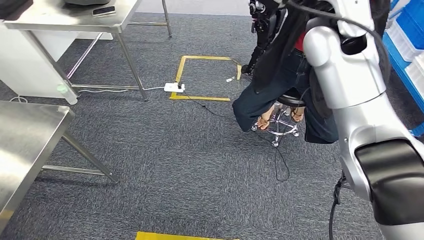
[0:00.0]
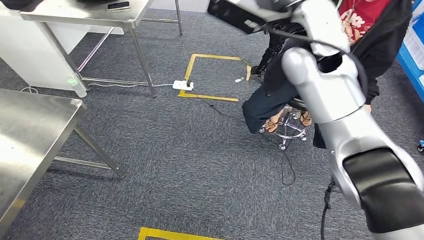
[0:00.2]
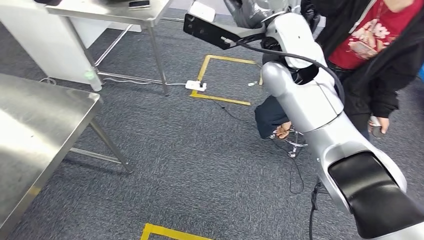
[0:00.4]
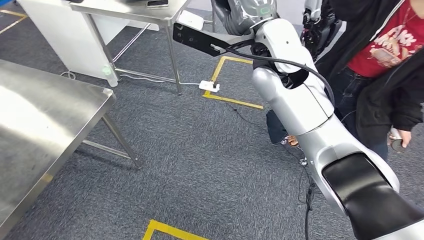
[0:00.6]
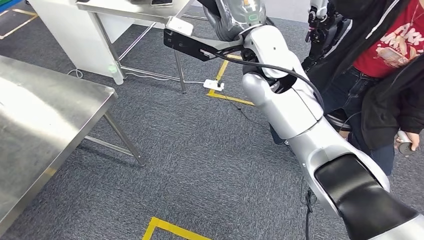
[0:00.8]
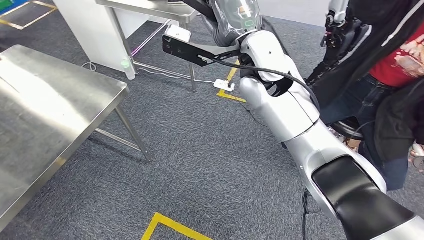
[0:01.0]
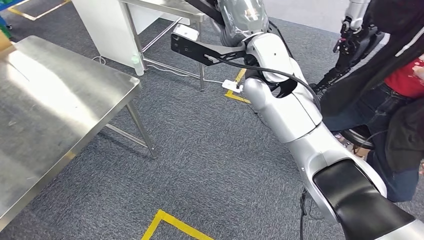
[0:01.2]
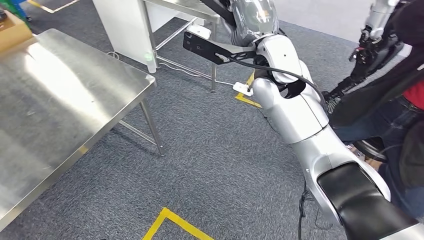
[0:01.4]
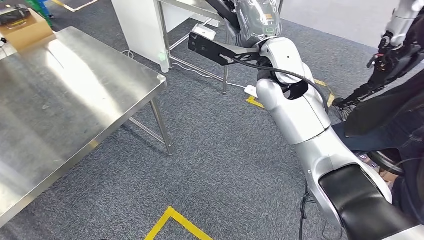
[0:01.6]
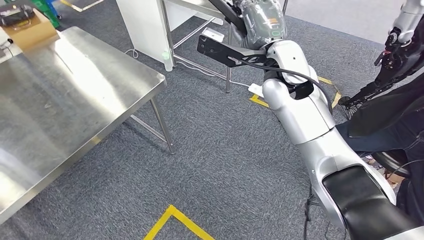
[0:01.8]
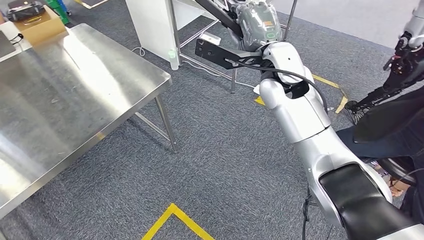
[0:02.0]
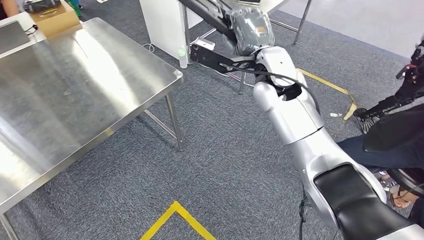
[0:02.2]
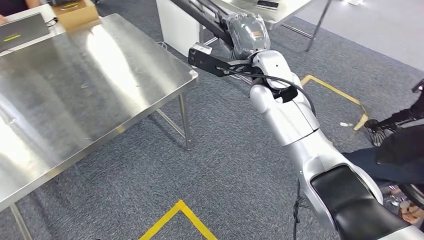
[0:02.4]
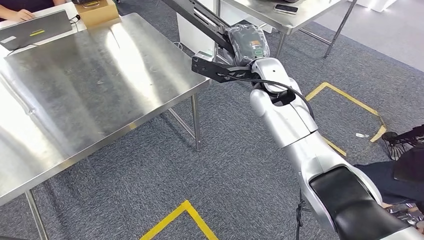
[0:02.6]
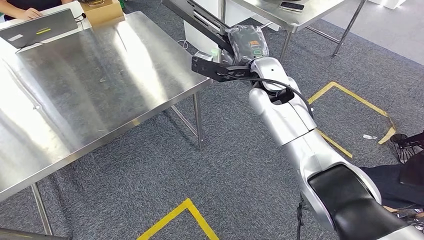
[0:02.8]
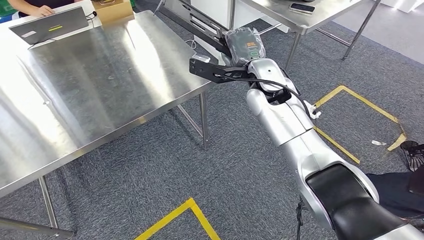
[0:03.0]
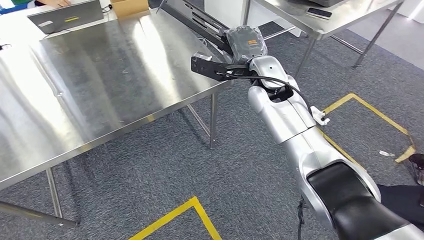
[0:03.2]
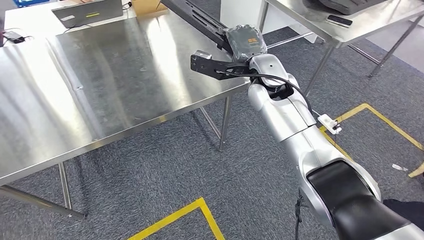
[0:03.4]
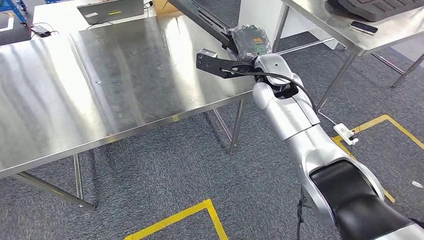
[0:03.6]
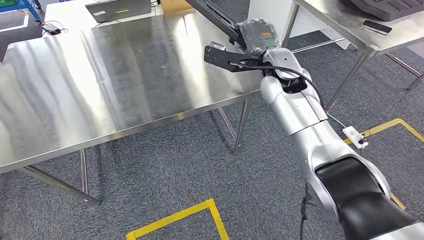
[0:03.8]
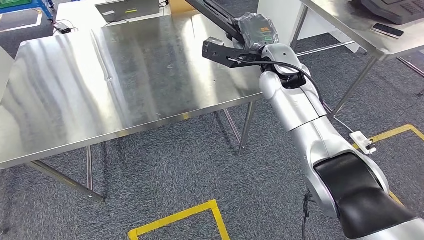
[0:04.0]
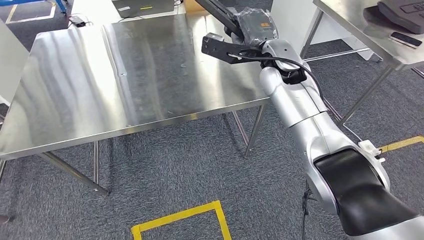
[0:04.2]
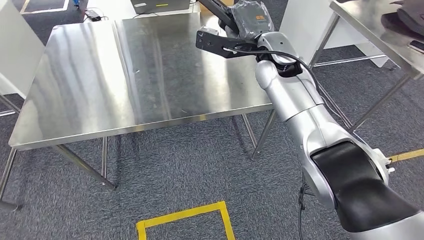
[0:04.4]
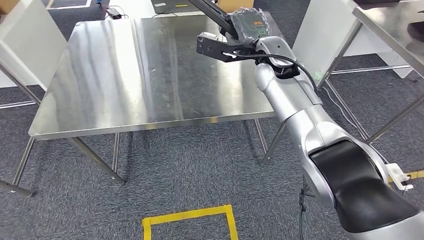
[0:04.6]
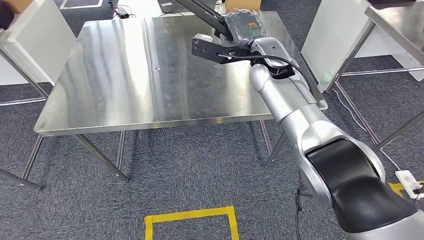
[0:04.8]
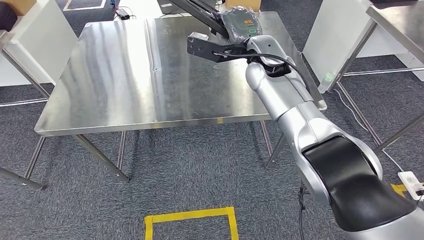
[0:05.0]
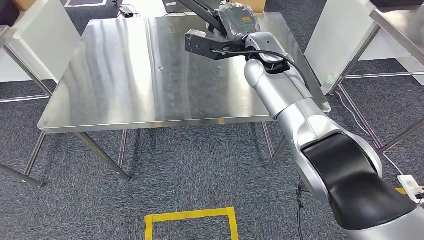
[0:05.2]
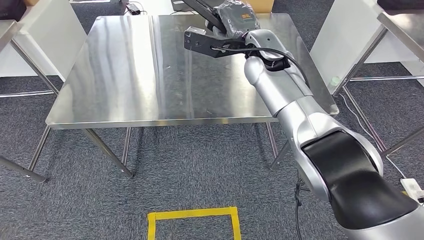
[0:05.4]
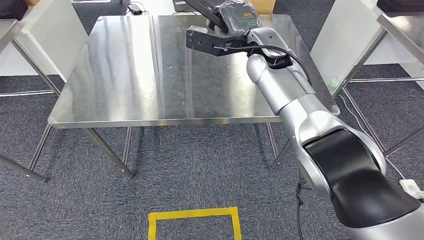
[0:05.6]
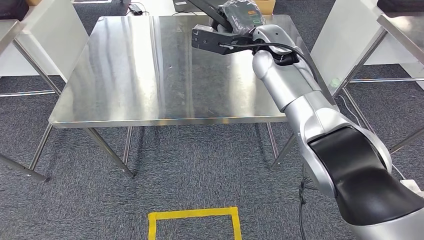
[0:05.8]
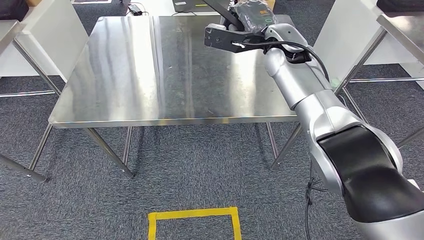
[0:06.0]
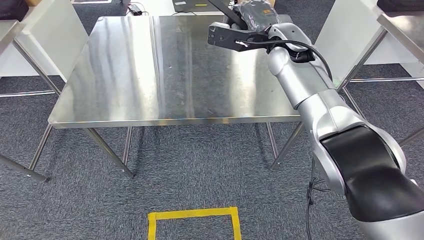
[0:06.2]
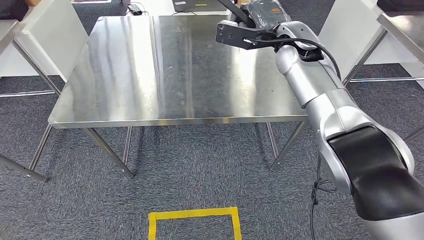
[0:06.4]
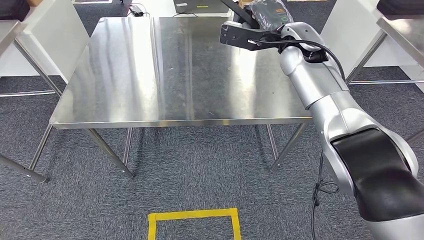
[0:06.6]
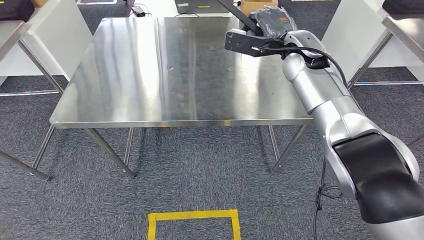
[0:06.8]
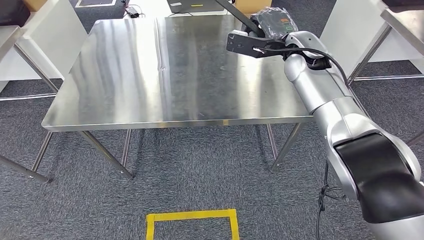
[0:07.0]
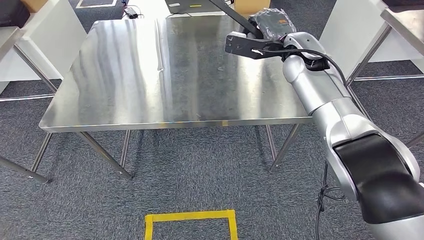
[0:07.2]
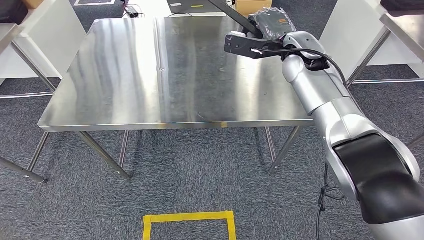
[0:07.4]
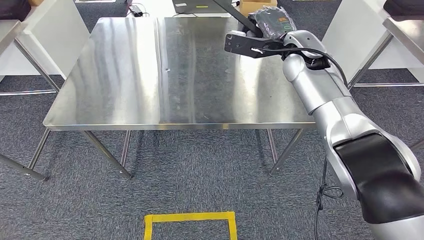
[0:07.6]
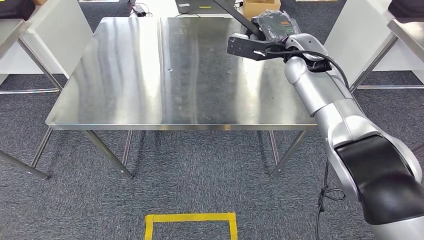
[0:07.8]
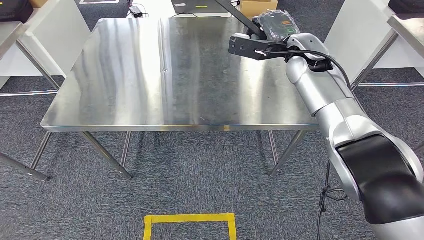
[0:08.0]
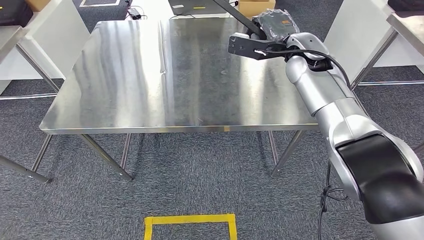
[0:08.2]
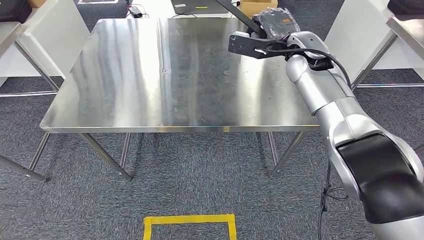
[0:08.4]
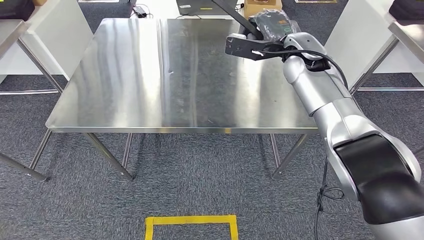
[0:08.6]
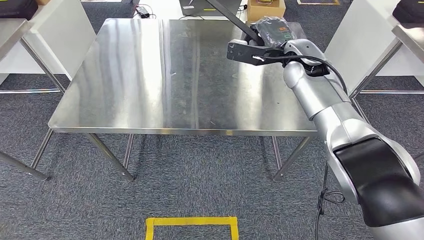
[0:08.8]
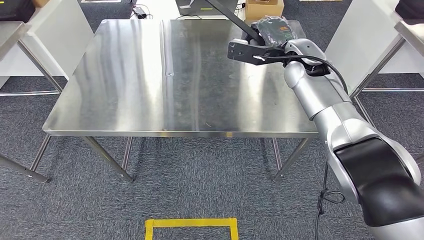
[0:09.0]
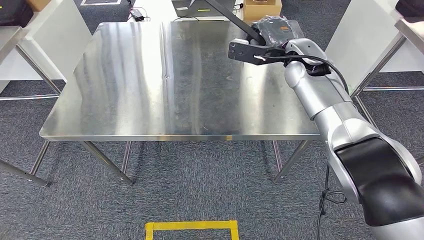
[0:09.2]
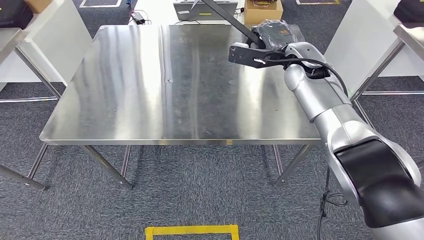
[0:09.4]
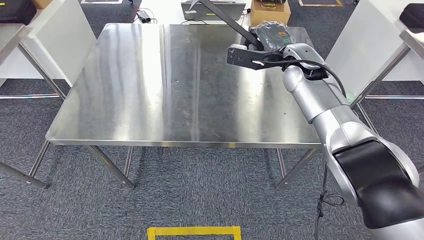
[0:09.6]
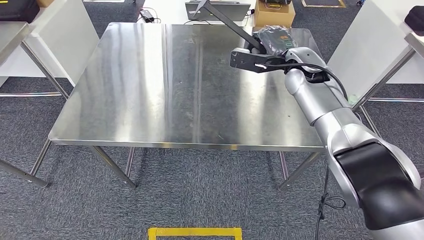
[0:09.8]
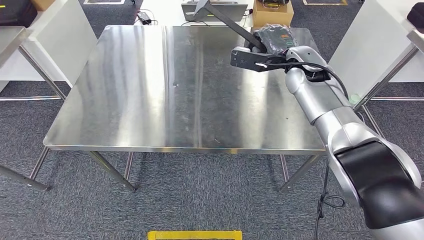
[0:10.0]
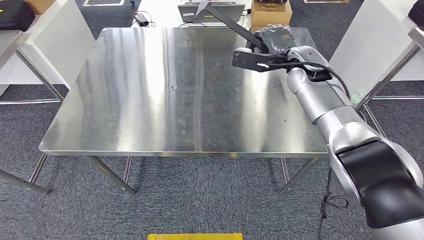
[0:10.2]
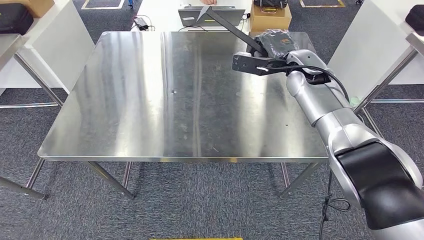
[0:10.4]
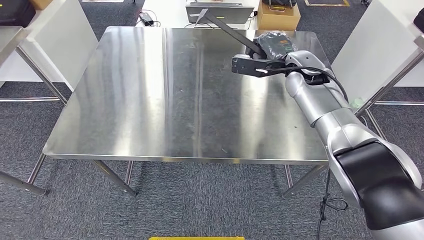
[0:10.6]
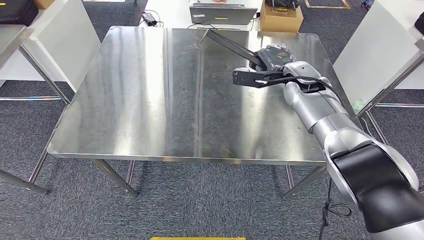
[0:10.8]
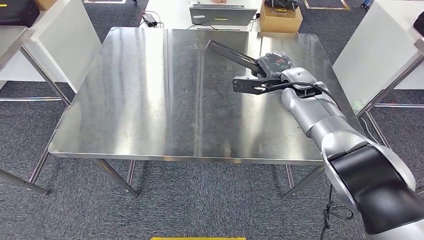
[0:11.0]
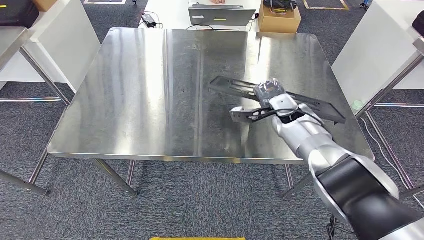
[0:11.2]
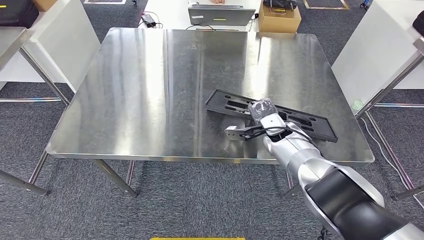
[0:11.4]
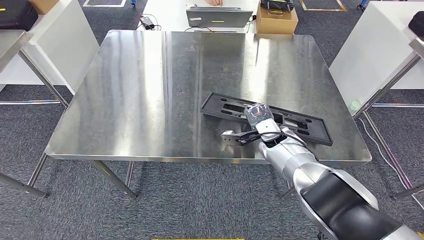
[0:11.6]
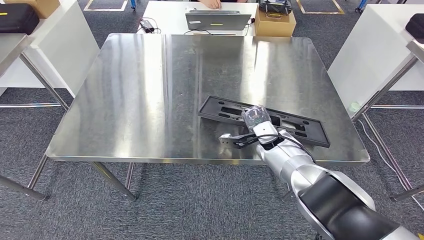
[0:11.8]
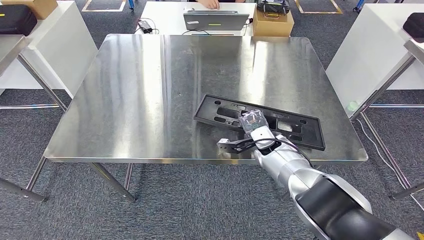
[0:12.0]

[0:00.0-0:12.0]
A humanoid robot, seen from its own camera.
Step, 0:00.0 to 0:02.6: Move the large material to the workbench.

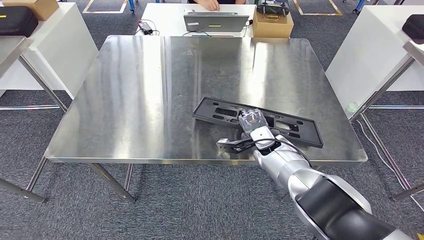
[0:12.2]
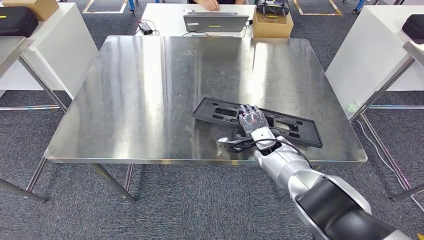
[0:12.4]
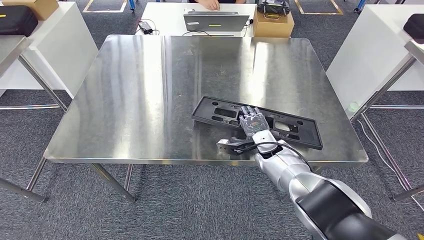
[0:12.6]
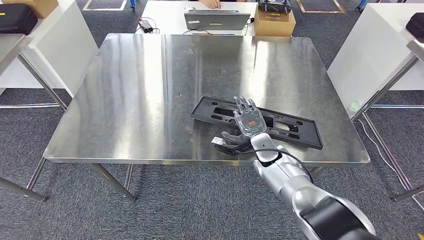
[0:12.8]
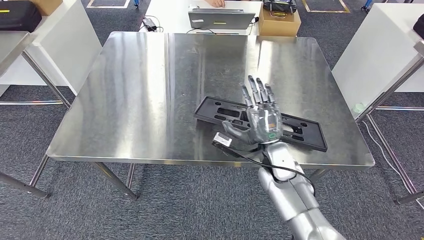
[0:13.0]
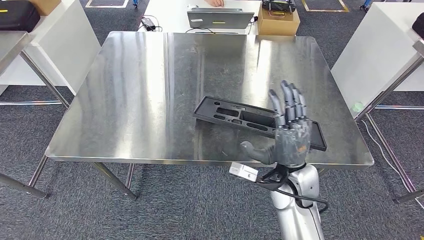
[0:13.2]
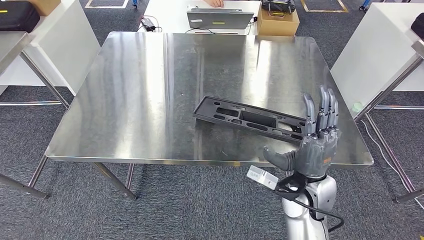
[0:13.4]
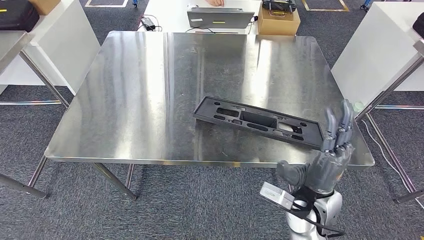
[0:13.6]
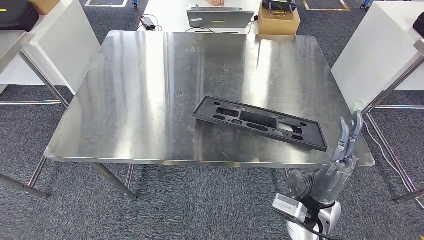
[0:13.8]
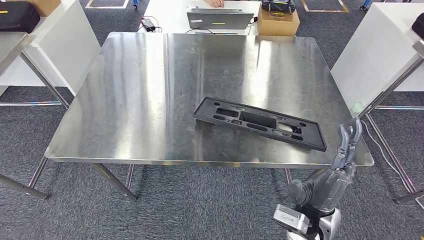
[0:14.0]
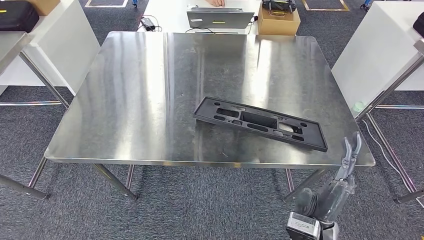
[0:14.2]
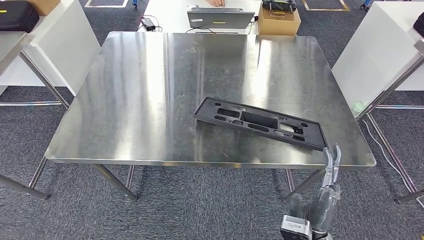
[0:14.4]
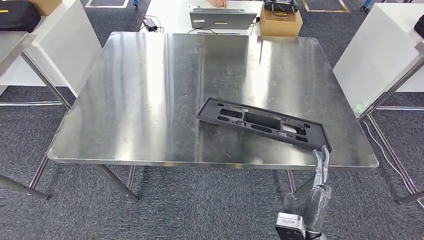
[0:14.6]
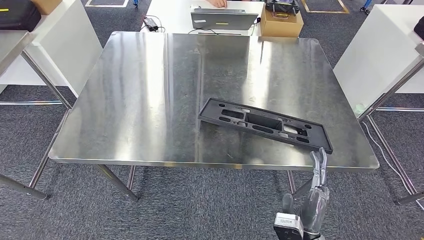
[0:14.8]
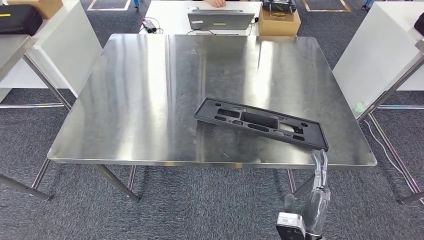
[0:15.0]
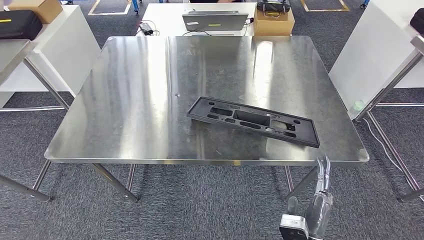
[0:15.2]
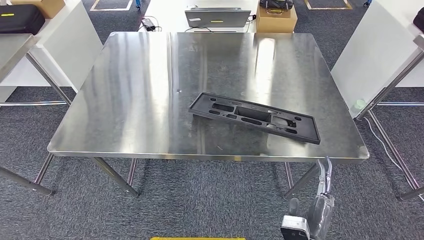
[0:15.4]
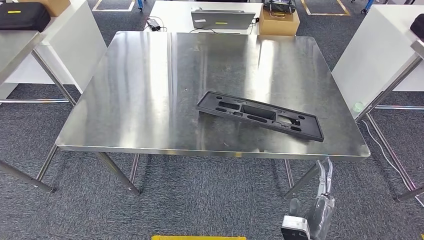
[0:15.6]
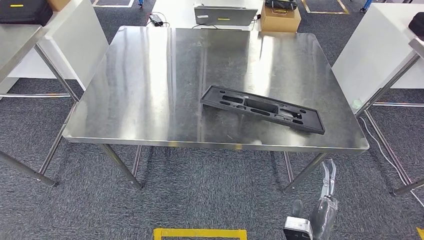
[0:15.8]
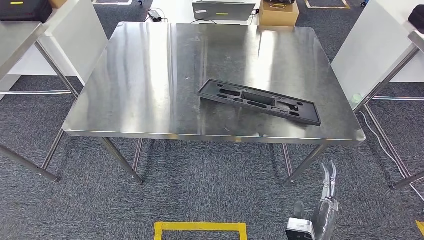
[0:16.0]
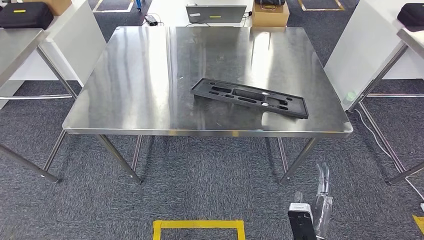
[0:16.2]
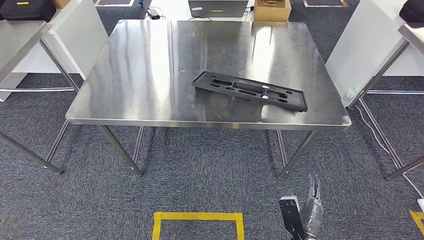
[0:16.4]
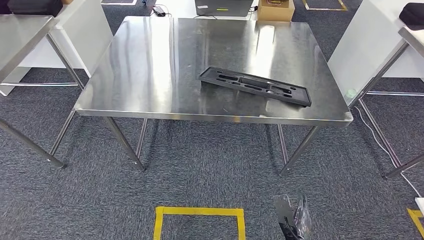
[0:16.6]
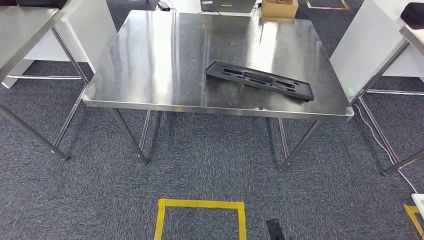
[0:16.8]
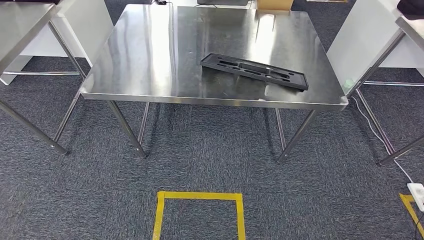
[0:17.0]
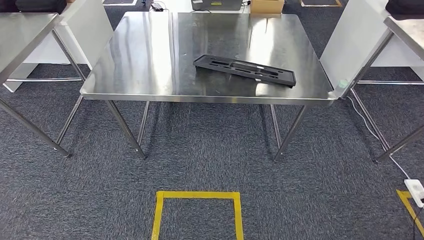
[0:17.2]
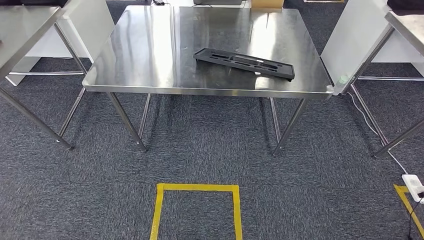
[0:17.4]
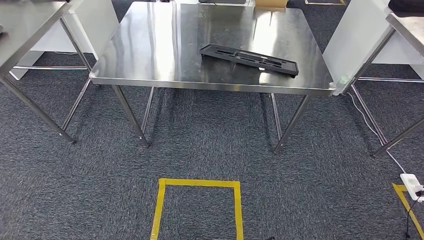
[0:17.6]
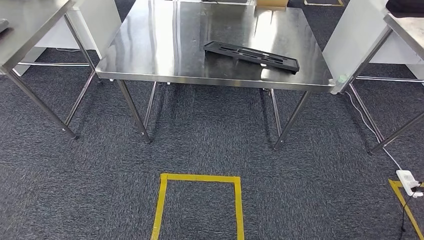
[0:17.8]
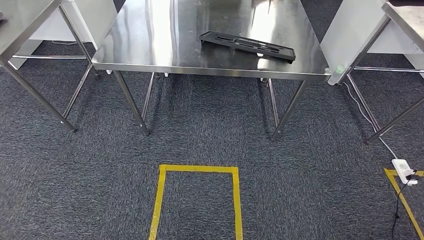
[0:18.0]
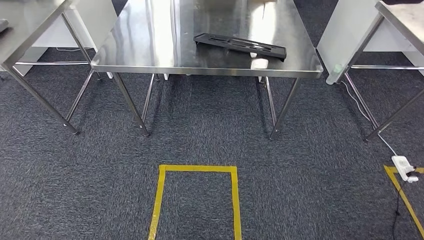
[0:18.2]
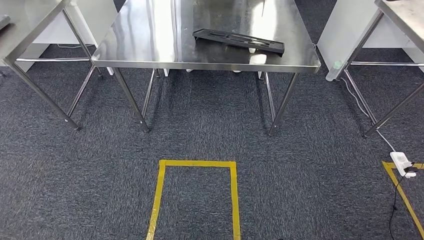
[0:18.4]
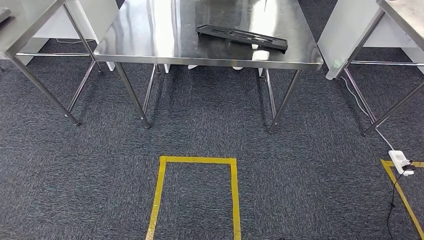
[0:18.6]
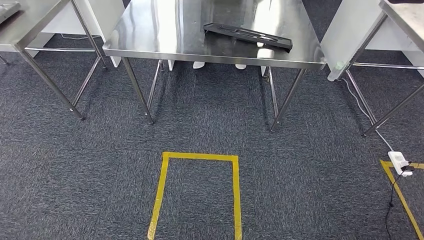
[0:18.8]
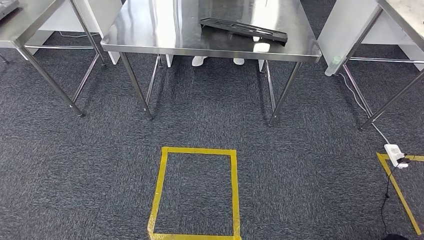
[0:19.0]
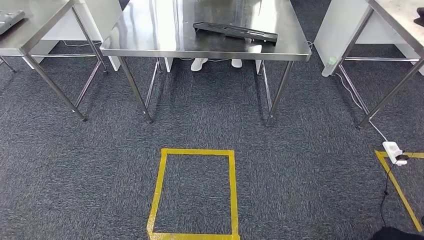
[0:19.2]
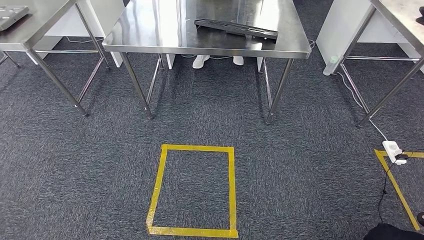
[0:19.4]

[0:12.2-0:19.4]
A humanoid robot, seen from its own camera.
Step, 0:12.2 to 0:16.6: Insert the large material into the corresponding slot on the workbench.
0:13.6 to 0:15.0: The right hand heads downward and backward, covering some 10 cm.
